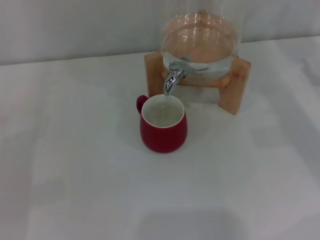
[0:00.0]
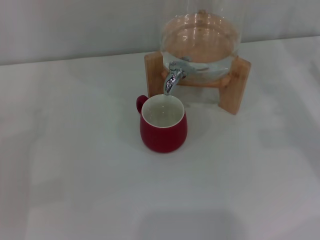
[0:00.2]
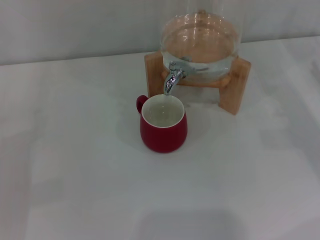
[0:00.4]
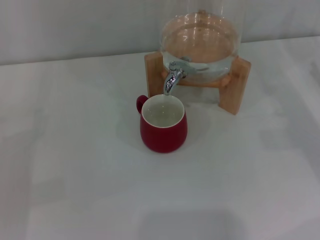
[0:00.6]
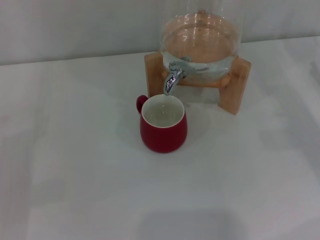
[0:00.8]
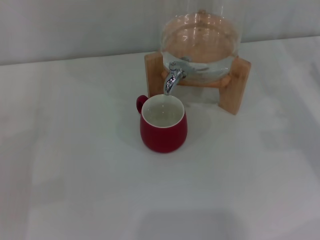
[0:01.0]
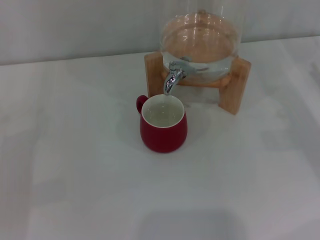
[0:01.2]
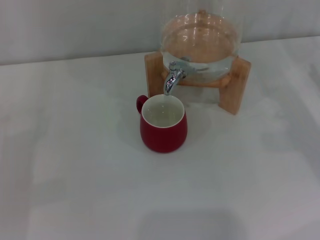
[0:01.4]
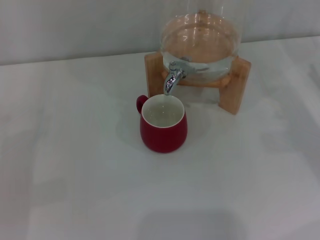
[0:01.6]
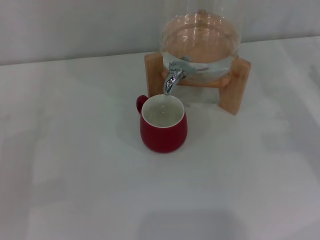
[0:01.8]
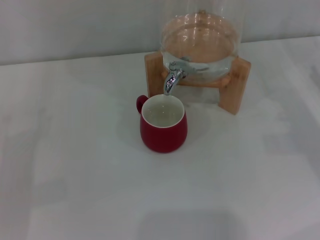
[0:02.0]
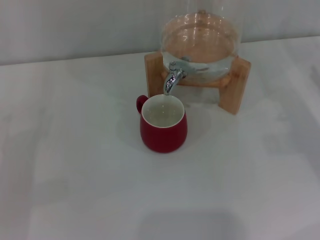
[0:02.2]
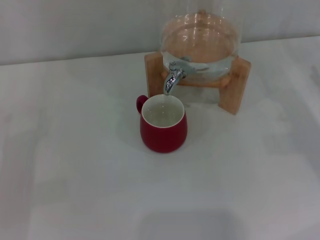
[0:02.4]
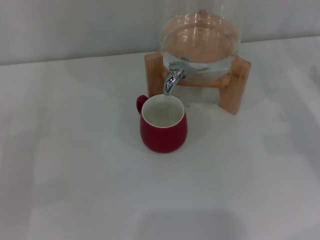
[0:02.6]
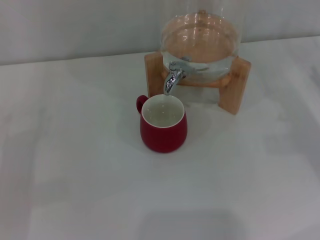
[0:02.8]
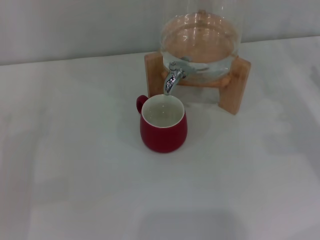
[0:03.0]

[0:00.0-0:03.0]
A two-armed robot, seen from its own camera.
Task of the whole recording: the left gripper pick up the red cup and place it horizontally under the faucet, the right gripper turn on the faucet to fill the cup, and then turn off the faucet.
0:01.6 to 0:03.0: Neither gripper changes place.

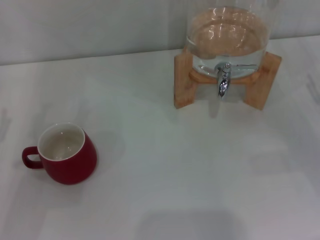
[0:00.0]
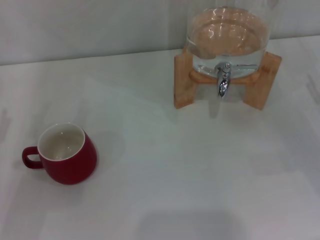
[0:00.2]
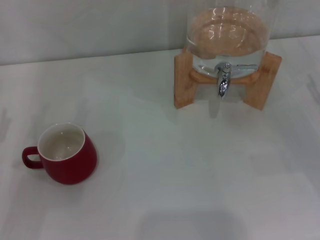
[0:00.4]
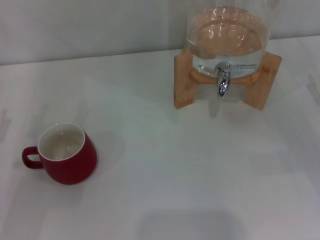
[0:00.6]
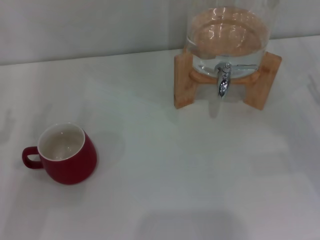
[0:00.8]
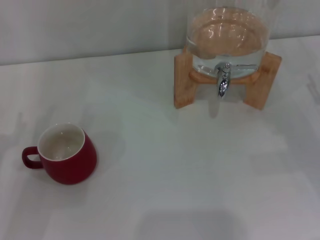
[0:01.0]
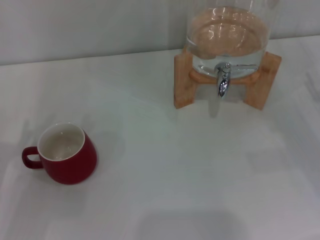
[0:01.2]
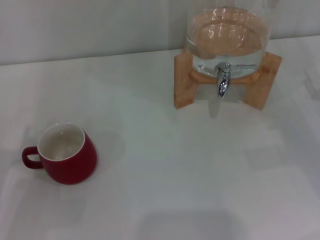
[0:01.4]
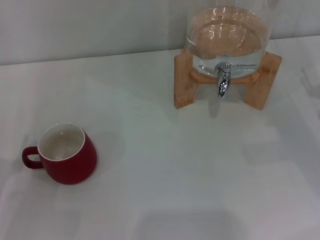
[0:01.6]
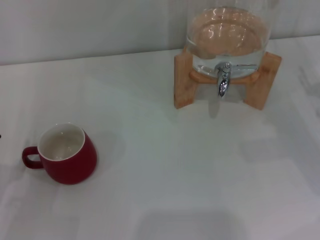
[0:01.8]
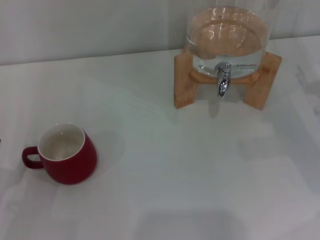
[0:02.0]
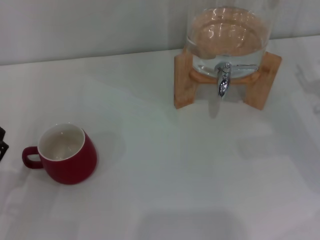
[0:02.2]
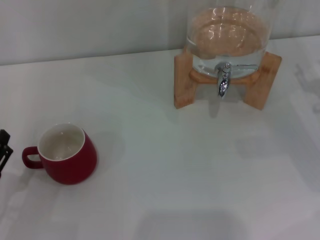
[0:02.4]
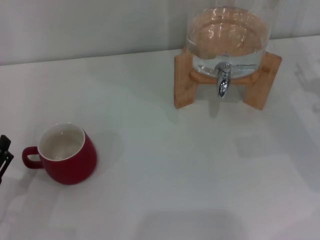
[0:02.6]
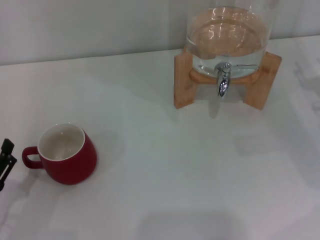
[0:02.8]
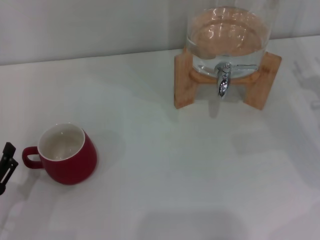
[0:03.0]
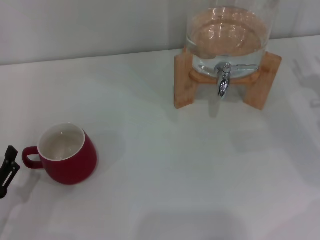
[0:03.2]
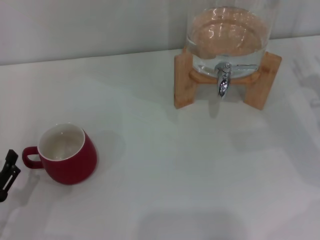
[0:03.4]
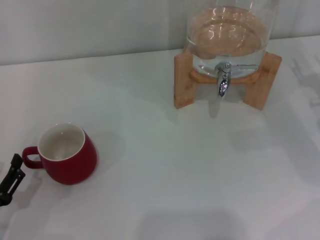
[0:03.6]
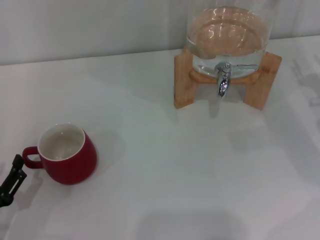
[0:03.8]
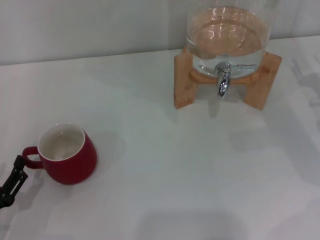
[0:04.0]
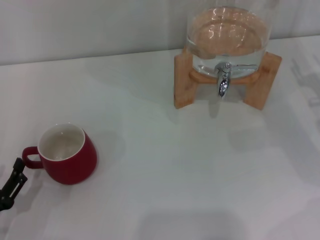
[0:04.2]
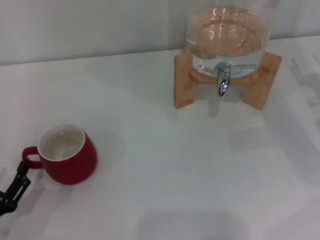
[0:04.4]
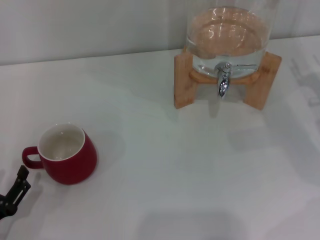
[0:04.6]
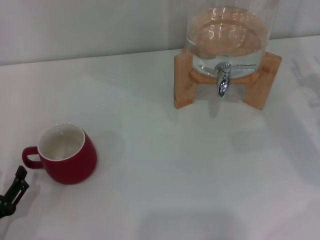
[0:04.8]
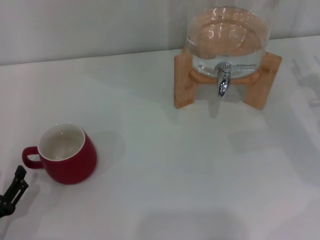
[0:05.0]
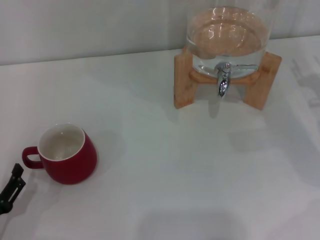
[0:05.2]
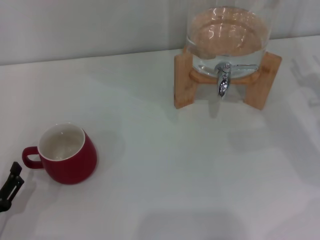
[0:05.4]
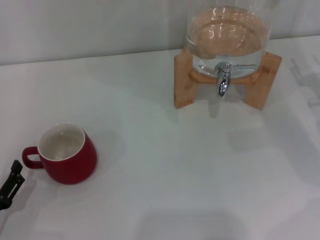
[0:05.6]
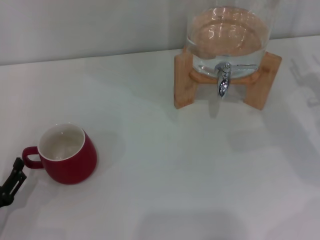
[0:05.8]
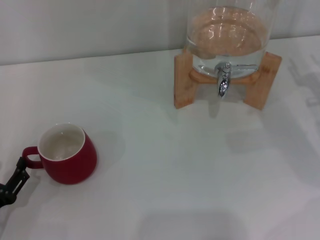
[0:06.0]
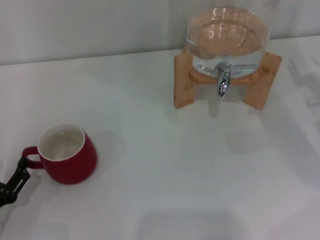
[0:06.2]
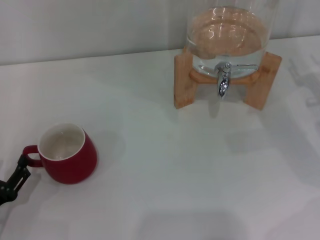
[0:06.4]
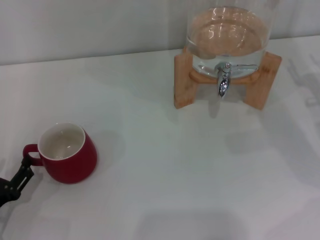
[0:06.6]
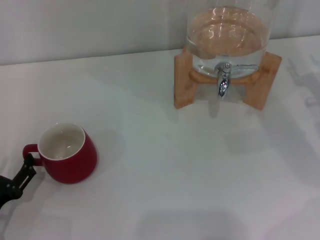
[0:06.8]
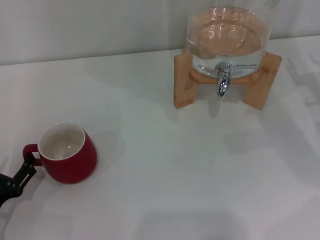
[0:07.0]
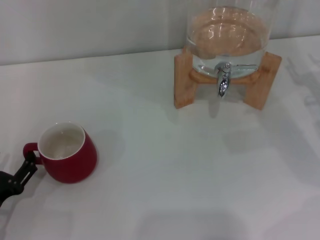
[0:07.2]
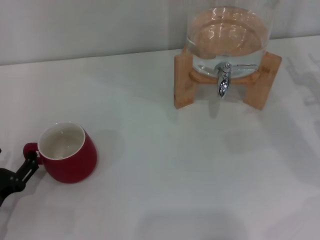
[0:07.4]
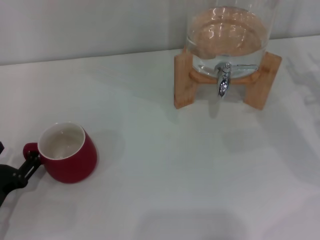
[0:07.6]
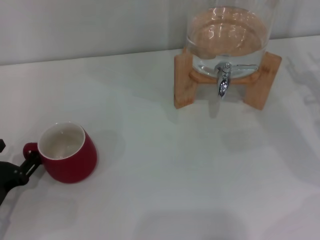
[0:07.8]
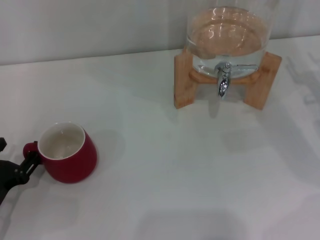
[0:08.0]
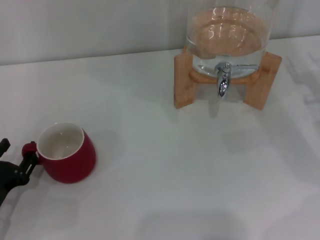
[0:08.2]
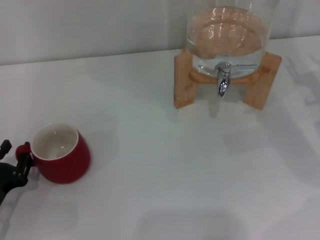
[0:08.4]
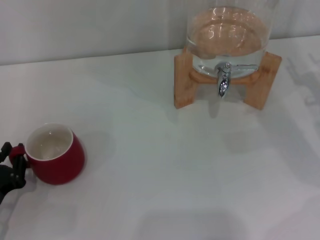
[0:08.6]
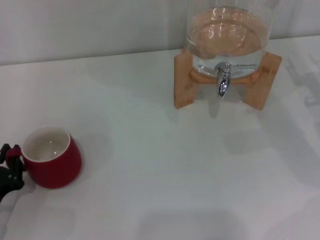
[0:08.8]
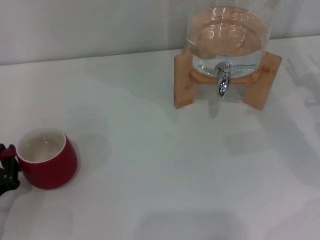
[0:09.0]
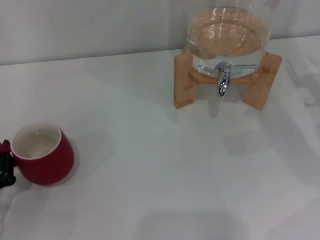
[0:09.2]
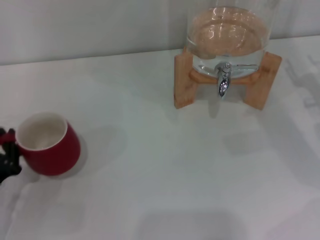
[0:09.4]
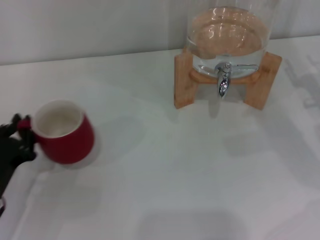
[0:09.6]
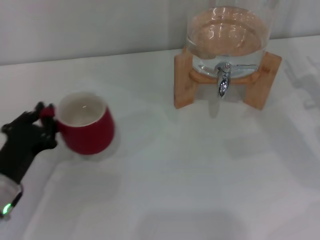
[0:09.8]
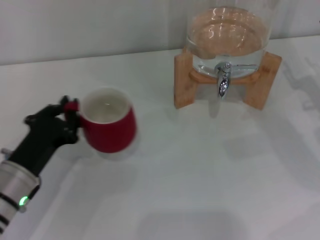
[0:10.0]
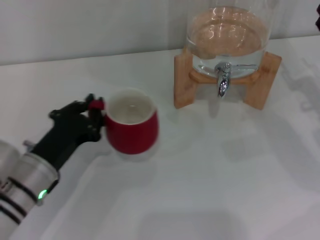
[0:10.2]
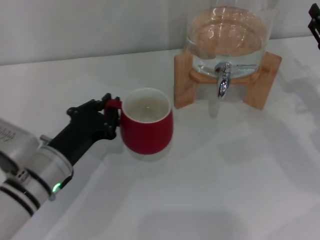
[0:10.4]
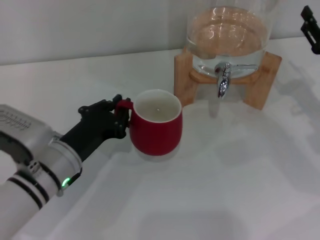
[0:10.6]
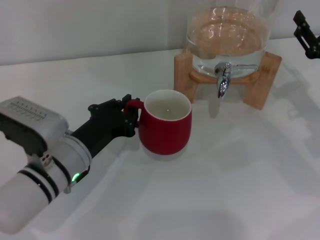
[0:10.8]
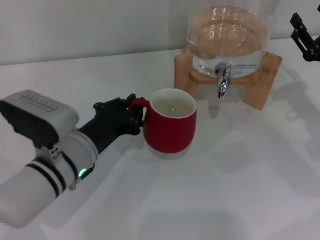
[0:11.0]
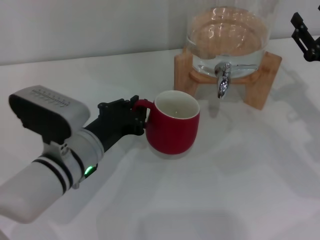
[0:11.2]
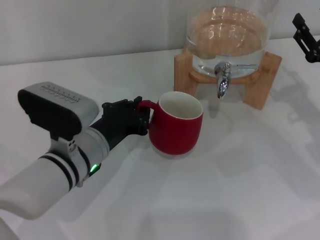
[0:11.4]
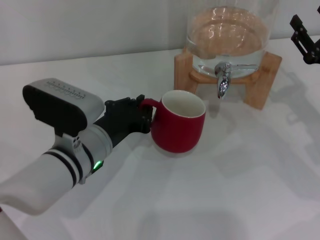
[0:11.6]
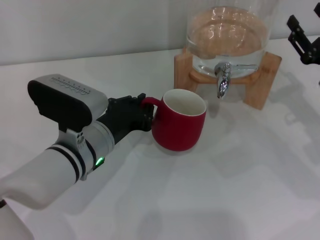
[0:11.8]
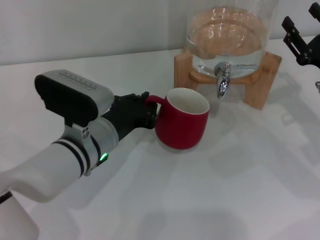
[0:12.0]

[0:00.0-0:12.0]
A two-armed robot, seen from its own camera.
Task of the whole recording: the left gripper pick up the red cup and place it horizontally under the faucet, the right gripper turn on the faucet to fill the cup, and then turn off the faucet.
0:03.0 to 0:04.4: The grippers stay close to where they were, moving slightly.
0:06.0 to 0:07.6: There are only small adjustments of the grippers.
0:07.6 to 0:09.0: The left gripper closes its fingers.
0:09.0 to 0:10.4: The left gripper shifts about 15 cm to the right, forward and upward.
0:10.4 to 0:12.0: The left gripper is displaced to the right by roughly 5 cm.

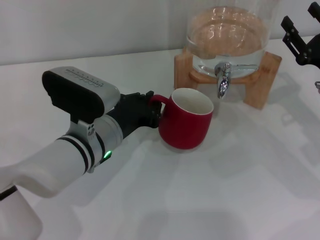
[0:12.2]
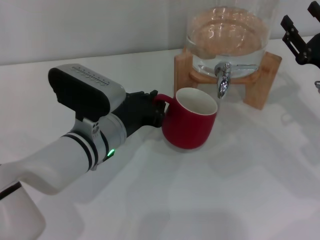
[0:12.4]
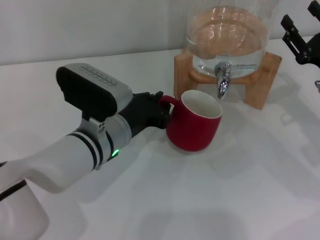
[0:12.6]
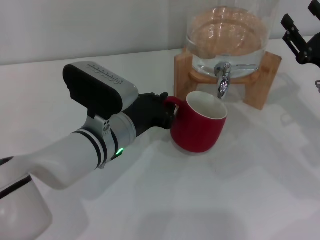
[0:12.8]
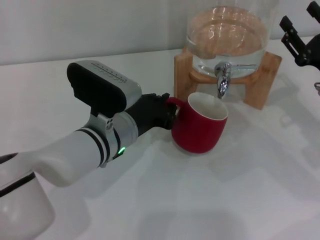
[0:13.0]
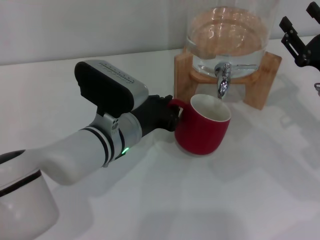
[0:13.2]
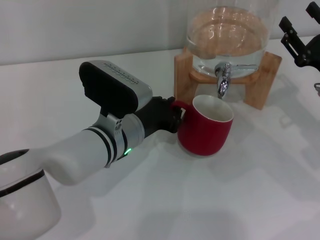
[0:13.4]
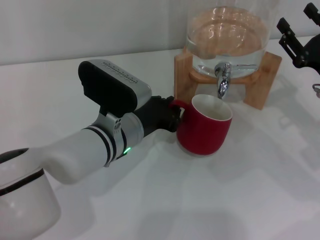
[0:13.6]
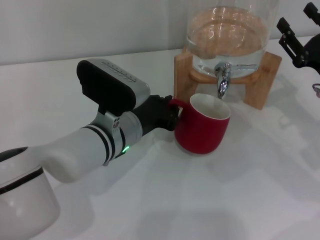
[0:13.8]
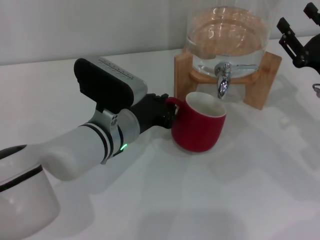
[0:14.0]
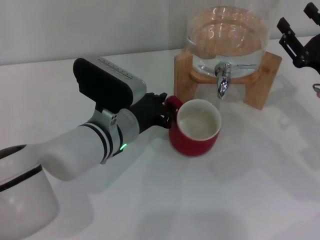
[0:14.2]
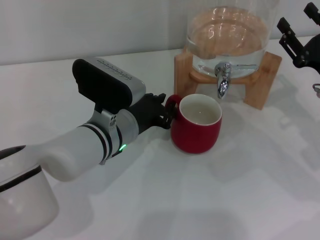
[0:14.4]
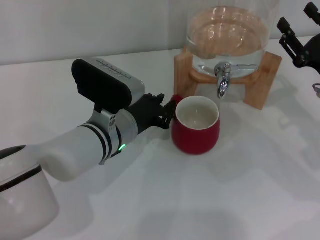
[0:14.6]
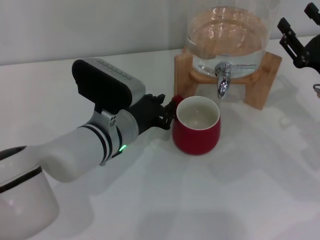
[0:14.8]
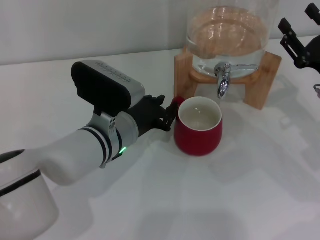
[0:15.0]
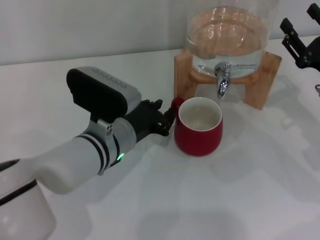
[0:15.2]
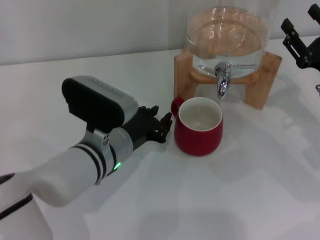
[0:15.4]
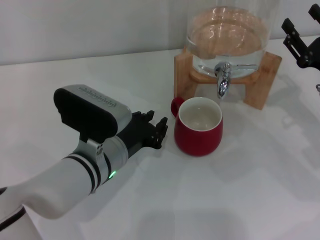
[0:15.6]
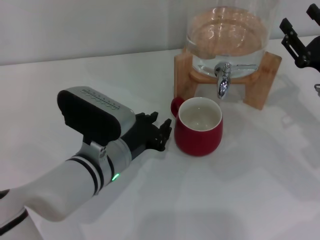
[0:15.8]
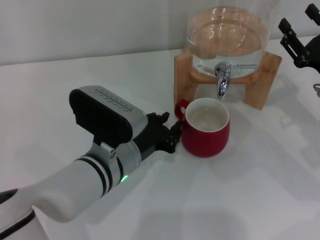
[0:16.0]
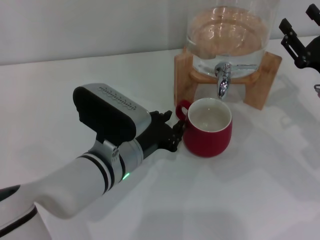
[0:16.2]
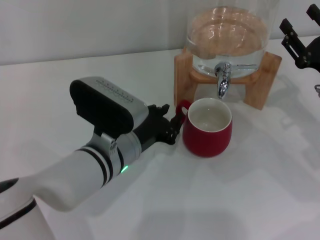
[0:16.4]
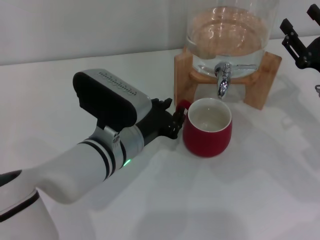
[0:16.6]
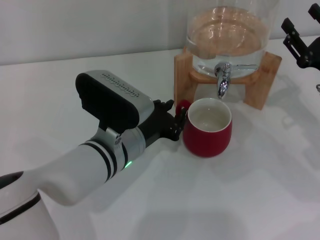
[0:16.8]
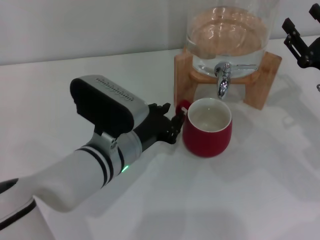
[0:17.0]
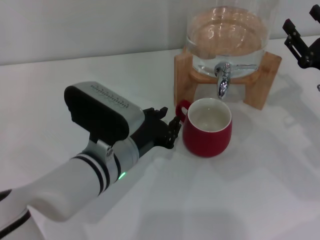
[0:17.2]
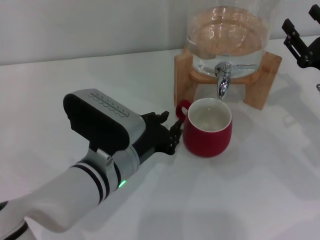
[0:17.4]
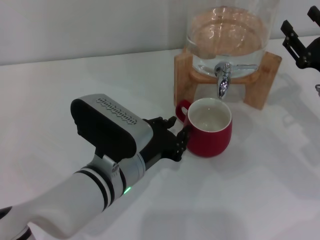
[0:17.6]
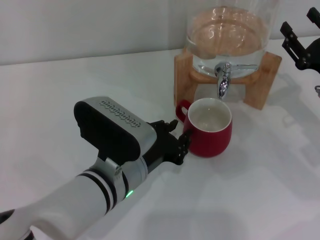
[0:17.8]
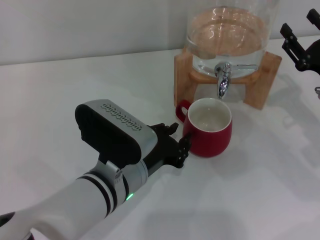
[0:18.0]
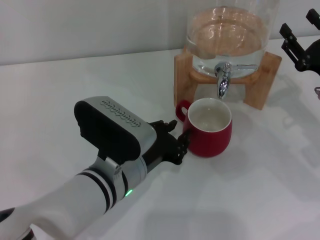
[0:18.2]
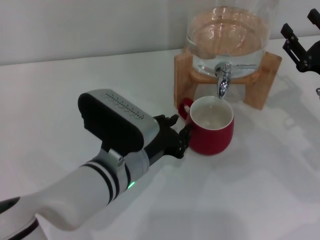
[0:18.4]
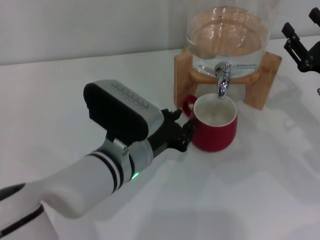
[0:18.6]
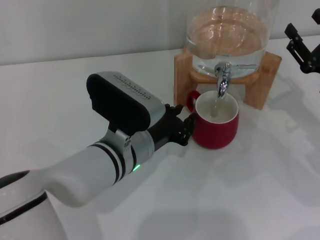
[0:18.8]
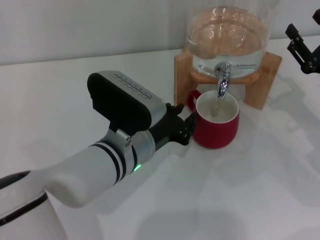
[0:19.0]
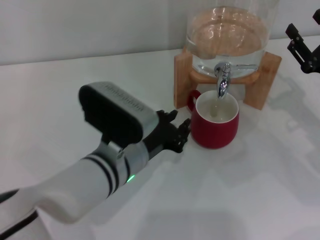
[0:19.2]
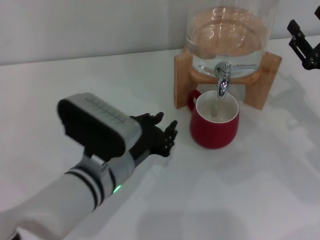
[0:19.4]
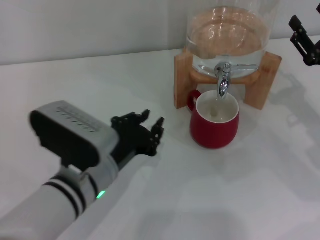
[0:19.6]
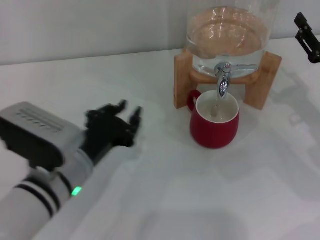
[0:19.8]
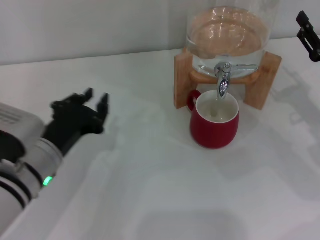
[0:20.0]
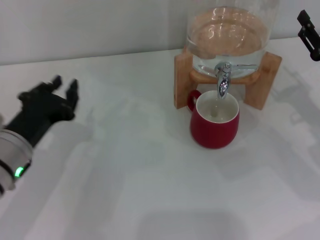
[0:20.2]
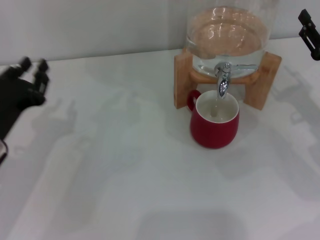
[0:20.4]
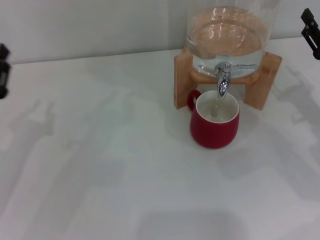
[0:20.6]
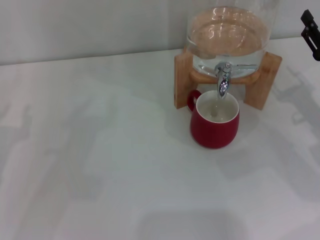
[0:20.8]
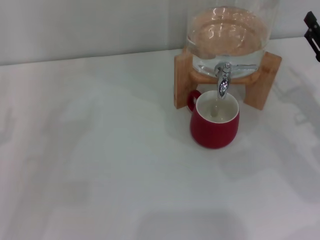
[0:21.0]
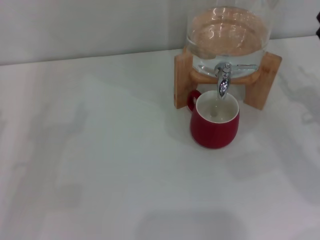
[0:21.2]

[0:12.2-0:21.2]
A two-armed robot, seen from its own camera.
Task of the whole recording: the left gripper pick up the red cup and place it horizontally under the faucet, the right gripper turn on the faucet to fill the cup, and then turn off the faucet.
Step, 0:12.2 to 0:19.2: Move the cup beneath the water dispenser nozzle with the left gripper.
0:12.2 to 0:13.8: There are only small adjustments of the grippers.
0:13.8 to 0:15.2: Both grippers stay about where they are.
0:15.2 to 0:16.6: There are only small adjustments of the grippers.
0:16.6 to 0:18.2: The grippers move only a little.
0:18.2 to 0:19.8: The left gripper goes some 5 cm to the left.
0:19.8 to 0:21.2: The left gripper moves to the left, some 20 cm, and opens.
